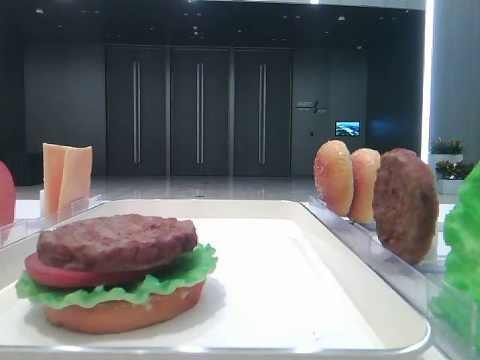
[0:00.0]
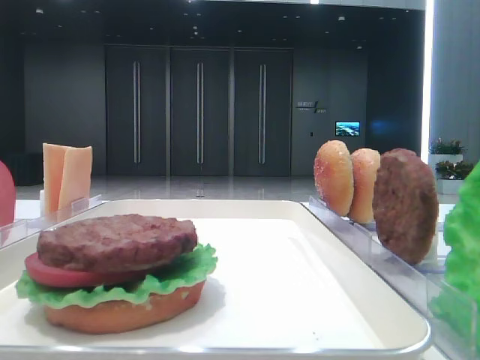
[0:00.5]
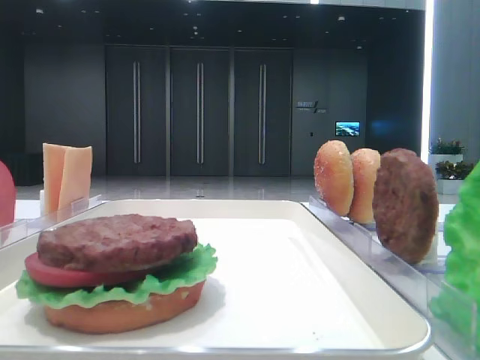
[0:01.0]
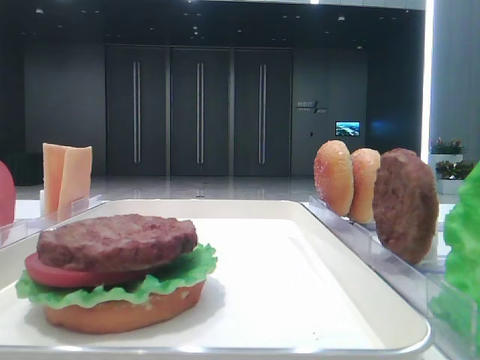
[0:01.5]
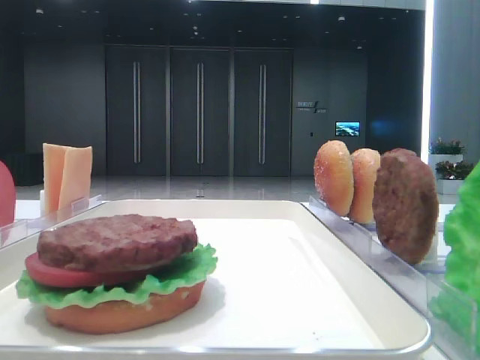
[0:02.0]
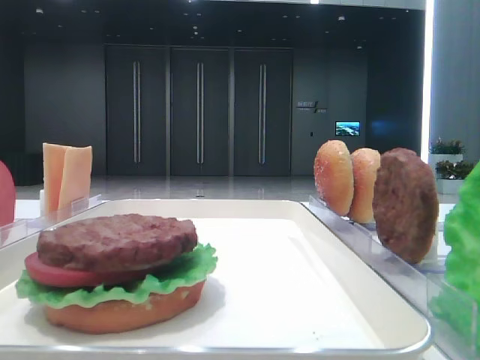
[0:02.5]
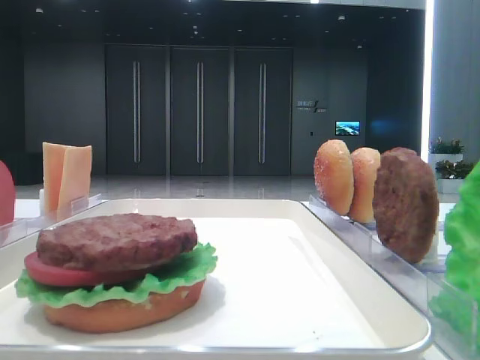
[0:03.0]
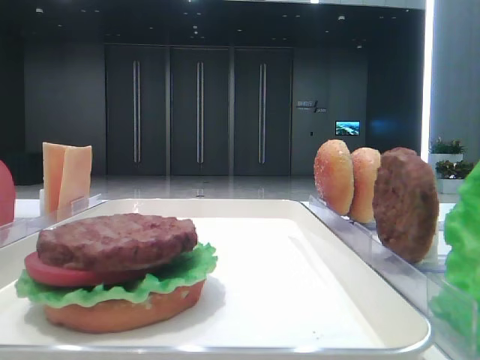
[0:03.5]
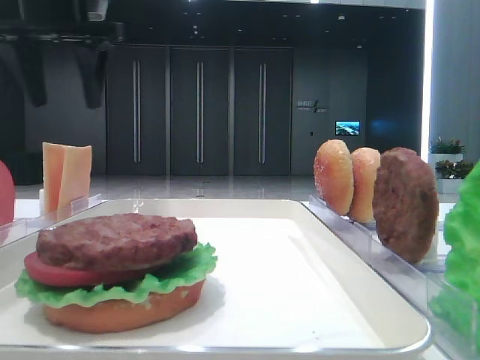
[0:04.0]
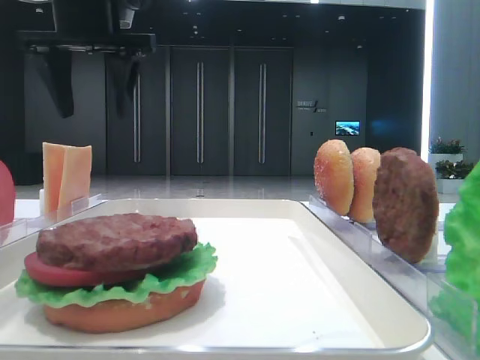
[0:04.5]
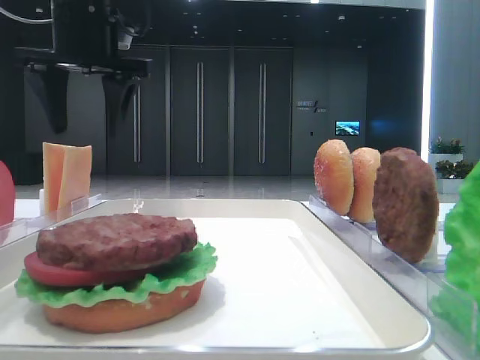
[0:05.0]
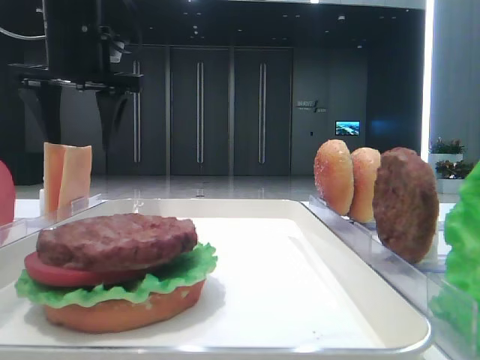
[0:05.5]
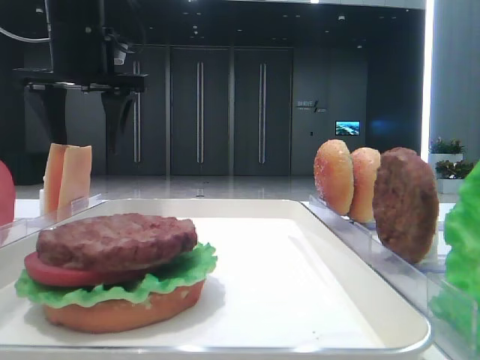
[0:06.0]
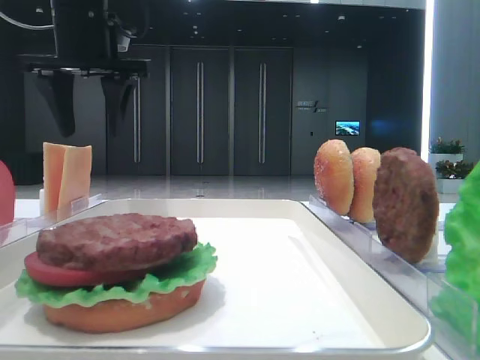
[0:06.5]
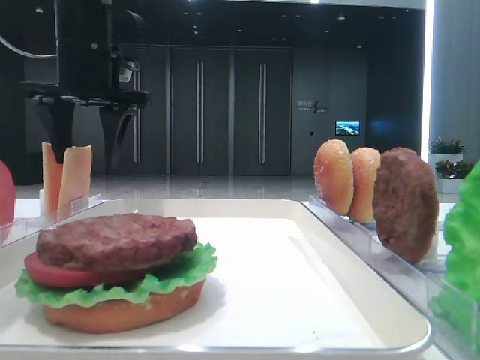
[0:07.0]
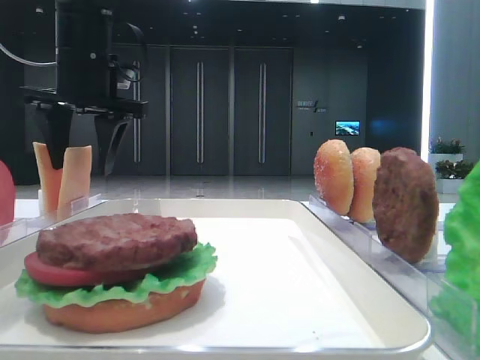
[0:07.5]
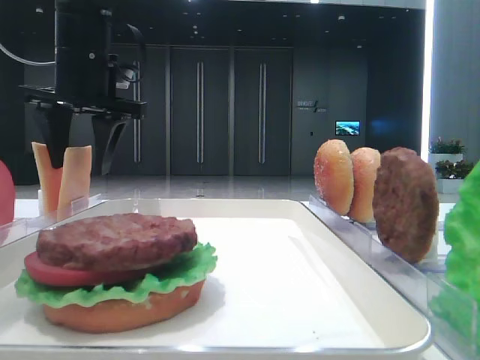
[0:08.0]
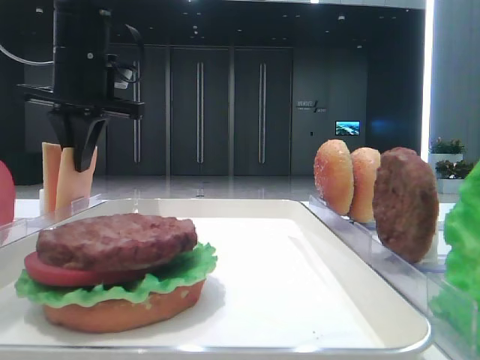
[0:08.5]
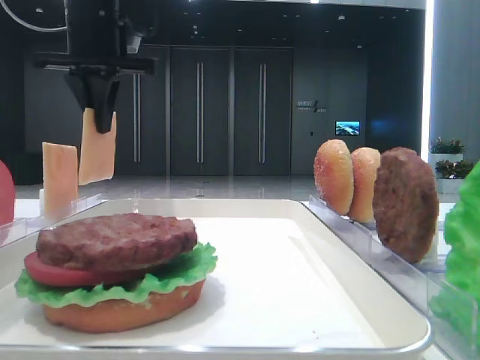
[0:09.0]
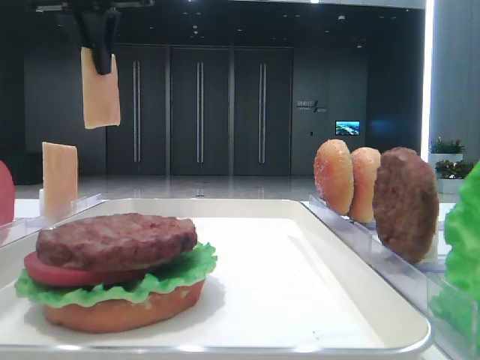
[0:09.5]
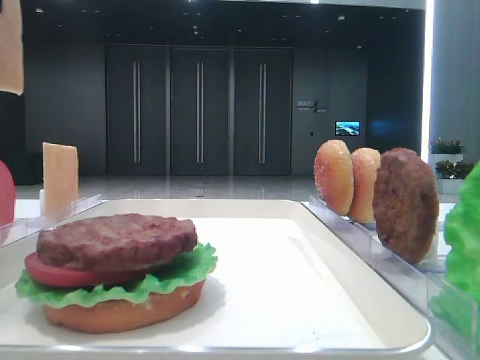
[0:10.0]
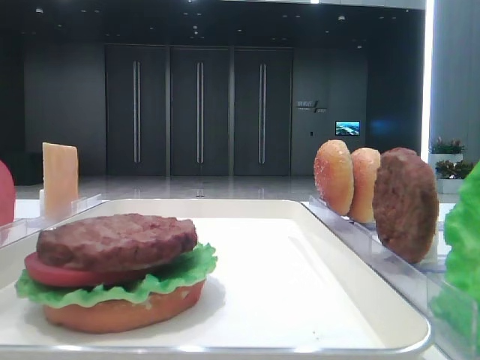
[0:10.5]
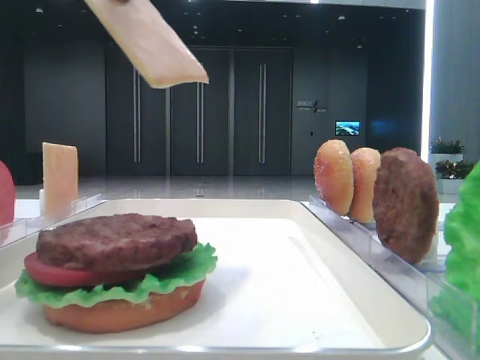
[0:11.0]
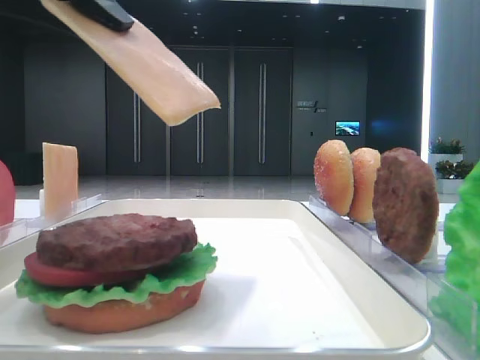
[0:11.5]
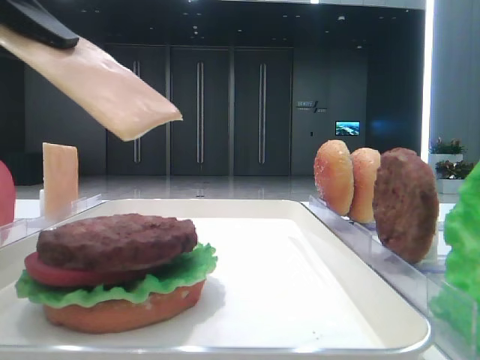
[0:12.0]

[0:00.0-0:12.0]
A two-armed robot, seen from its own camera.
Step, 0:00.0 to 0:08.5: Pick up the cheese slice with the left hand.
0:02.0 to 0:04.0: The left gripper heads forward, covering roughly 40 cm.
0:04.0 to 0:06.0: The left gripper moves roughly 5 cm.
0:06.0 to 0:08.0: The grippers move only a little.
0:08.0 to 0:10.0: The left gripper travels backward and upward by approximately 20 cm, and closes up.
0:10.0 to 0:12.0: The left gripper travels downward and backward by about 15 cm.

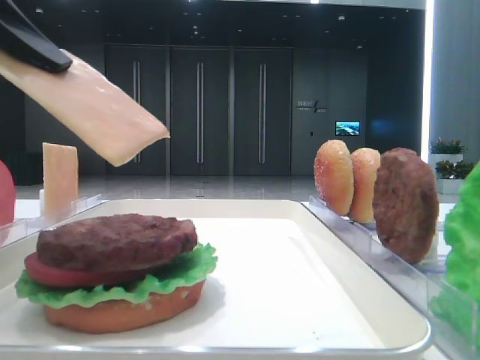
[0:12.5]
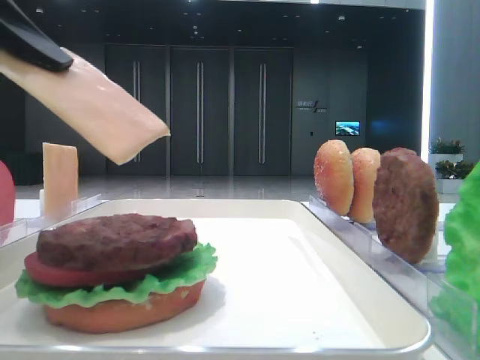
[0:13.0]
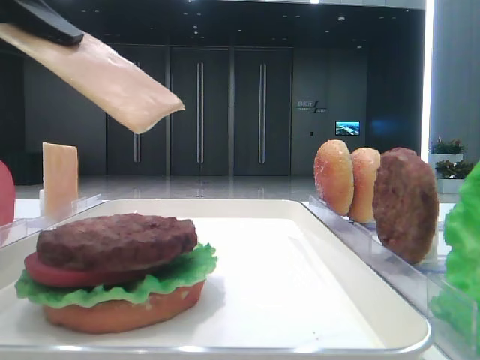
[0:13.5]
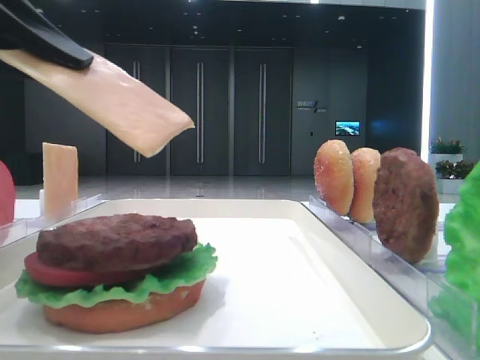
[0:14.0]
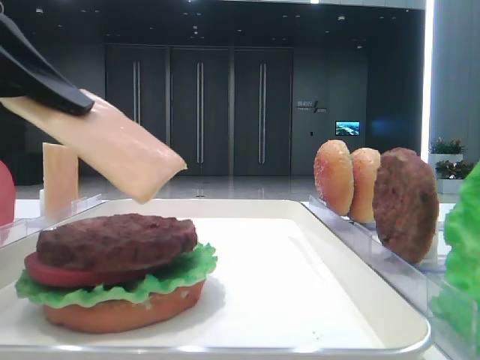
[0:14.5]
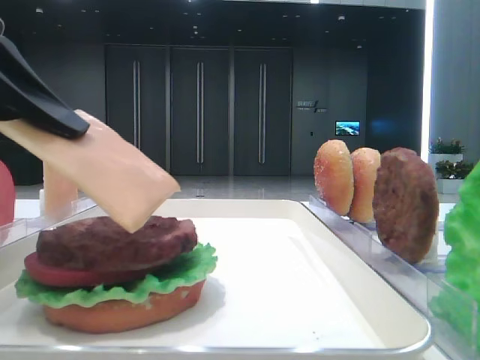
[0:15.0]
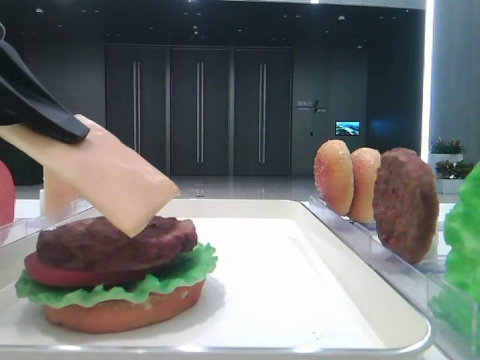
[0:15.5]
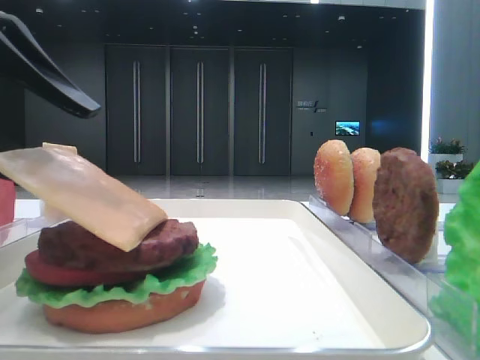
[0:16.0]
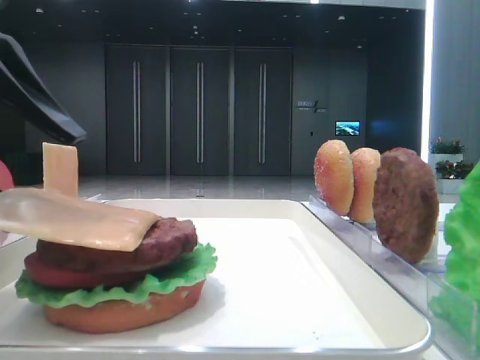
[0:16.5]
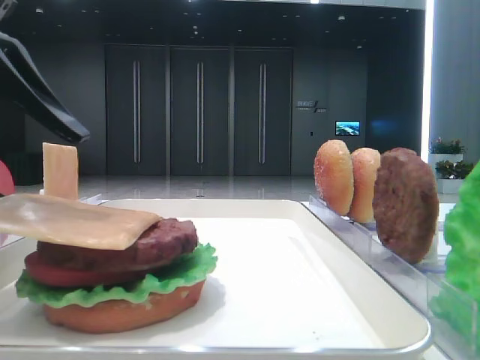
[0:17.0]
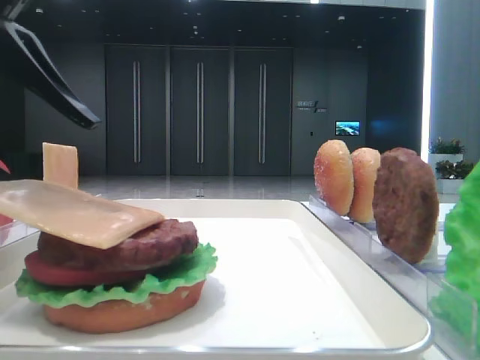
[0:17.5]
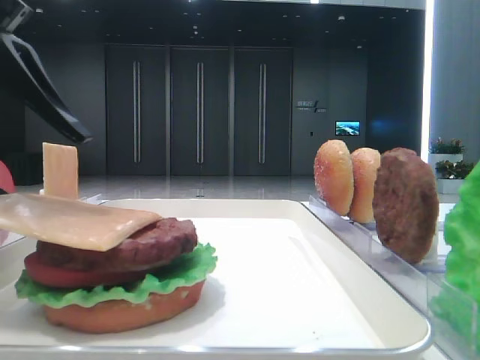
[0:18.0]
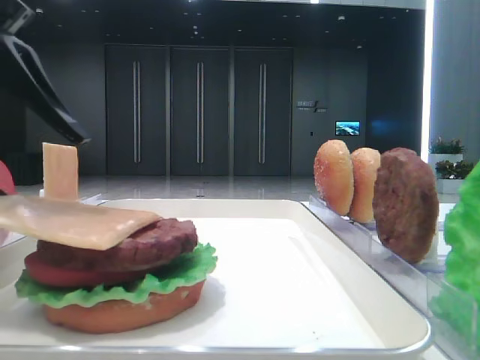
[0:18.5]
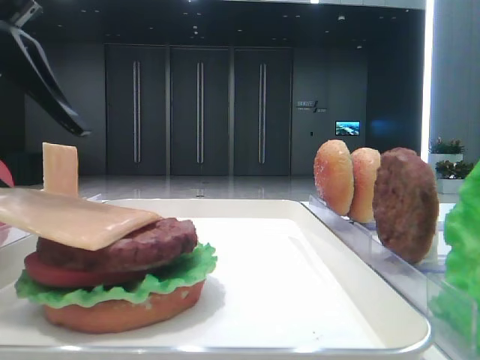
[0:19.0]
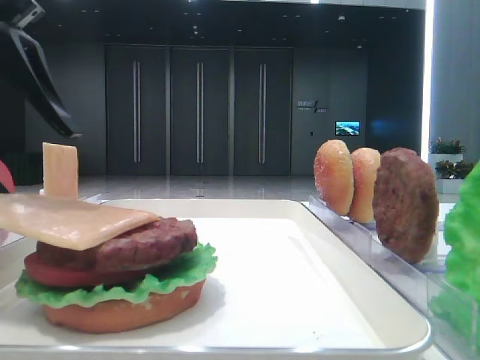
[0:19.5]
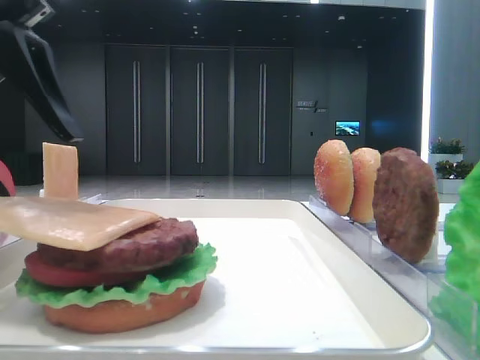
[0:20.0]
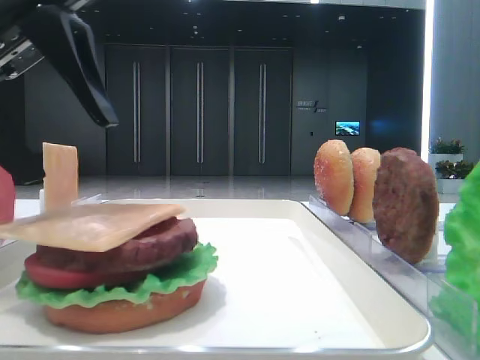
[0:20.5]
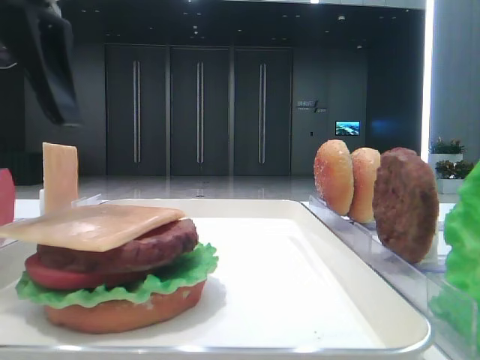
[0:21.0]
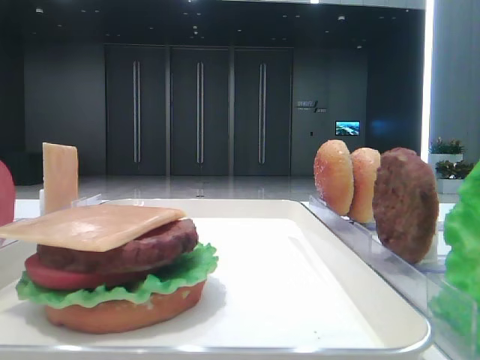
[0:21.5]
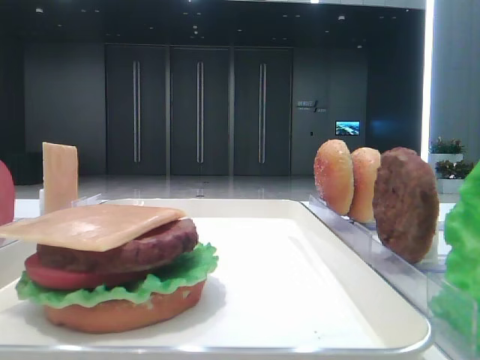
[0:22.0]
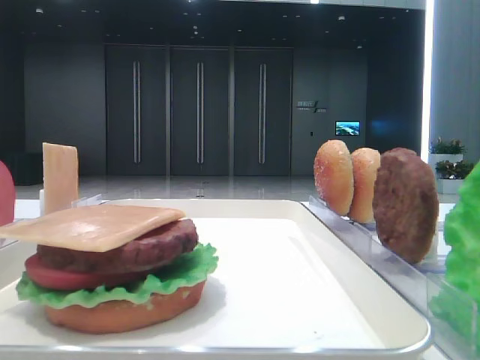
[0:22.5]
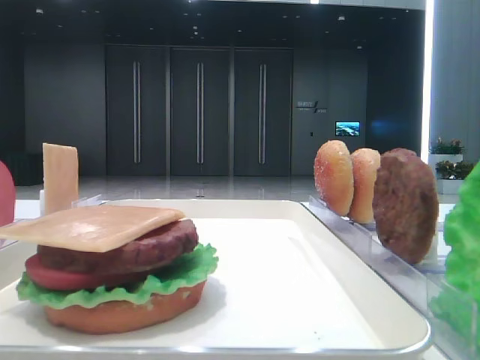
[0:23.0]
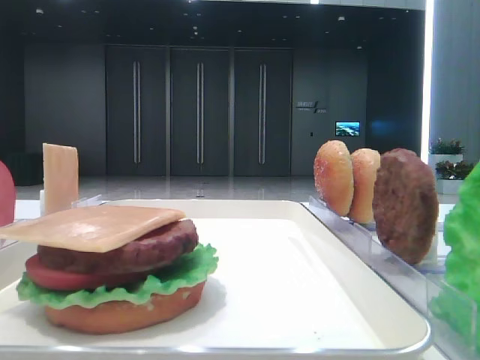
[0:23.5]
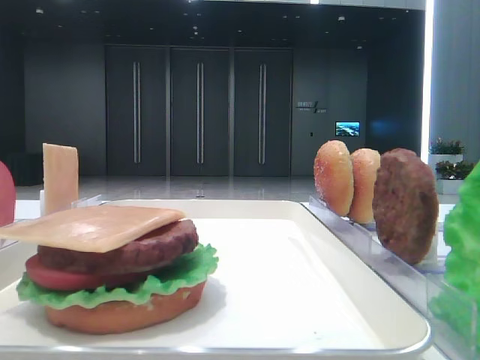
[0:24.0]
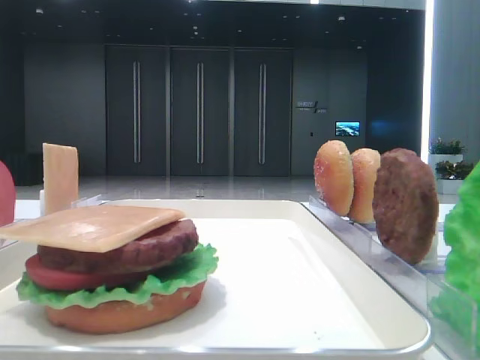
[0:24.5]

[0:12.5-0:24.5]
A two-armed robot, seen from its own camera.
Step, 0:12.5 to 0:20.0: Place the cheese slice on the patty with the left hand.
0:12.5 to 0:14.5: There are only small adjustments of the grippers.
0:14.5 to 0:16.5: The left gripper opens up.
0:16.5 to 0:18.5: The grippers move only a little.
0:18.5 to 0:20.5: The left gripper moves some 5 cm.
0:20.5 to 0:22.5: The left gripper is displaced to the left, upward and backward by approximately 20 cm.

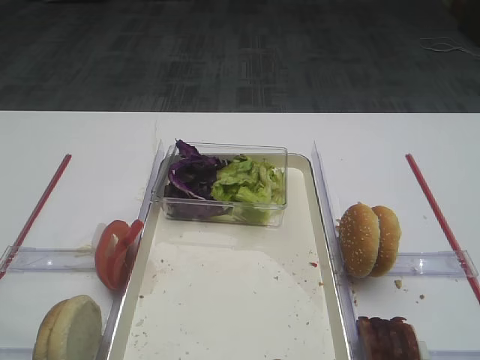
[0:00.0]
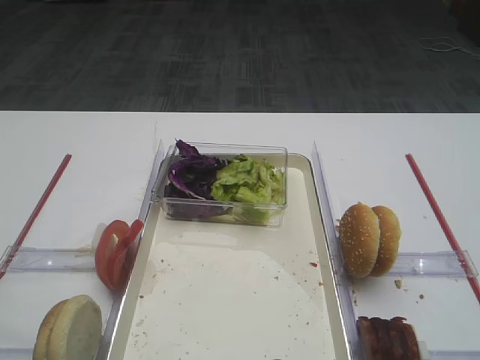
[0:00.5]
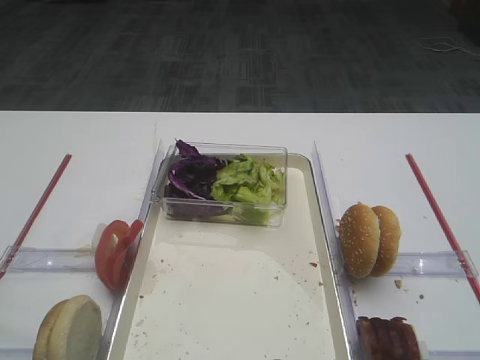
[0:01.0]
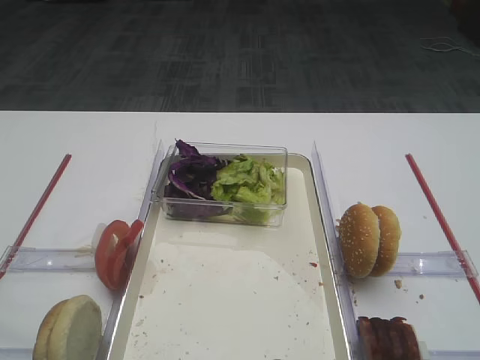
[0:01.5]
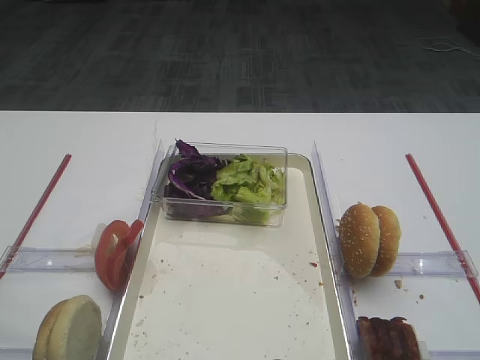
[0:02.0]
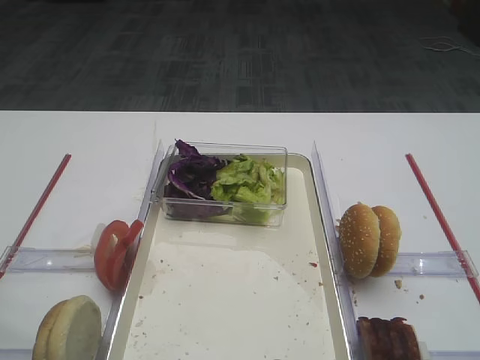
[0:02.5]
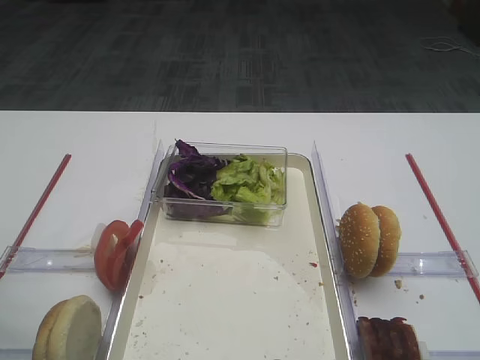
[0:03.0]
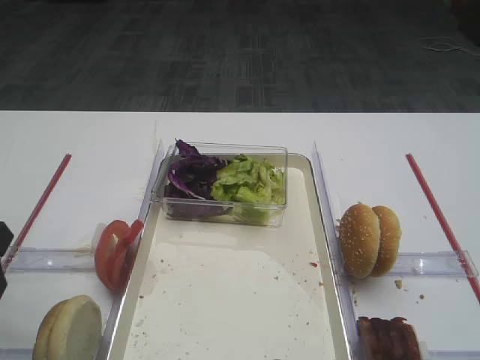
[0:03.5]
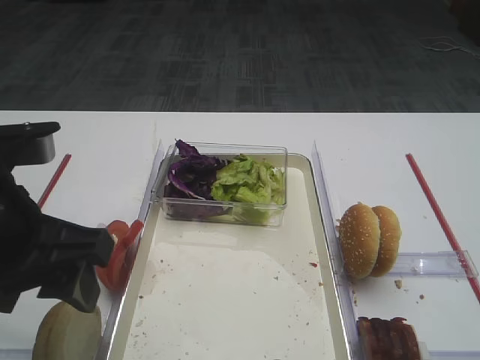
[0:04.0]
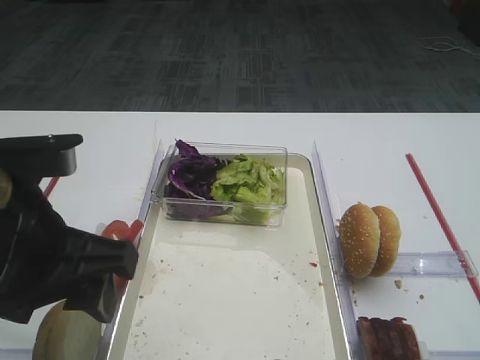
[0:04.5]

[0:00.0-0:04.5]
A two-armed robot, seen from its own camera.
0:02.0 to 0:04.5: The left gripper moves to the right and forward, about 15 cm.
